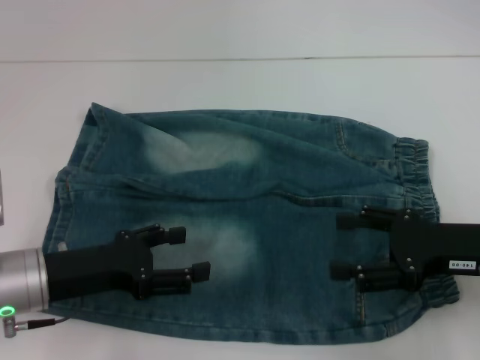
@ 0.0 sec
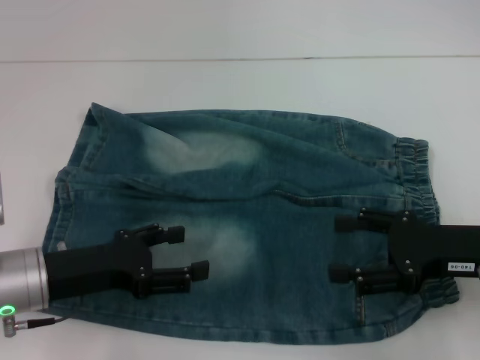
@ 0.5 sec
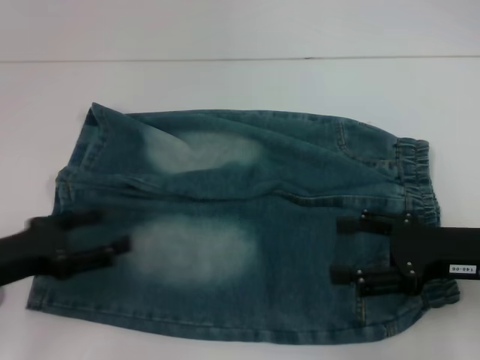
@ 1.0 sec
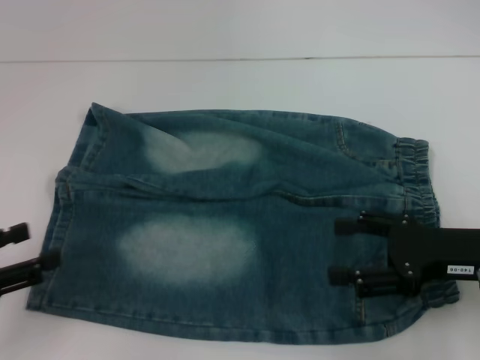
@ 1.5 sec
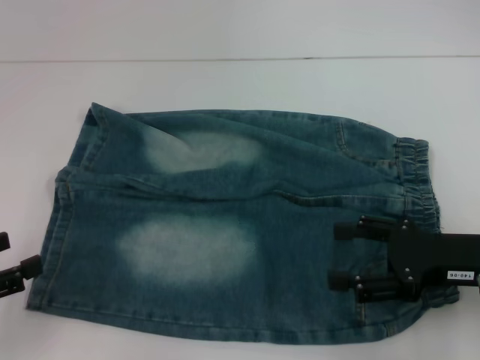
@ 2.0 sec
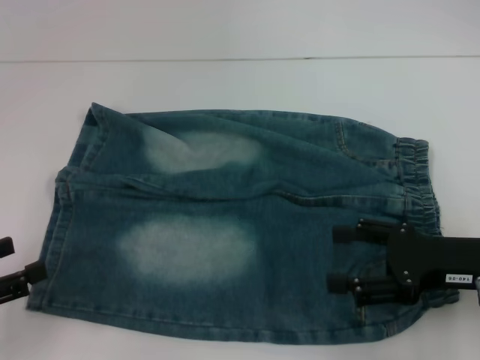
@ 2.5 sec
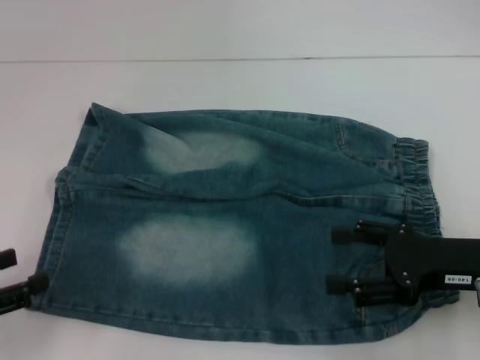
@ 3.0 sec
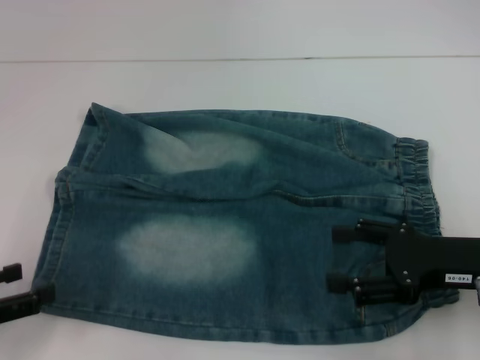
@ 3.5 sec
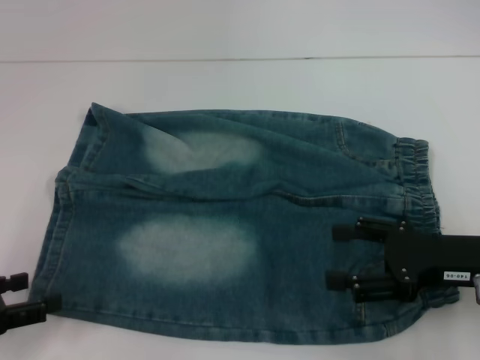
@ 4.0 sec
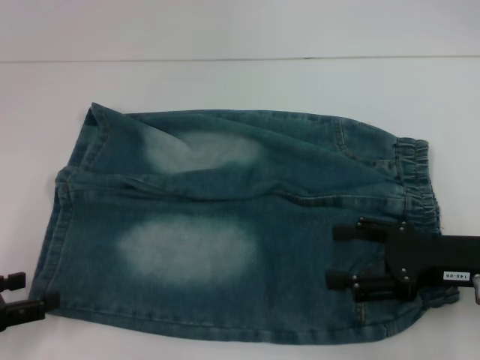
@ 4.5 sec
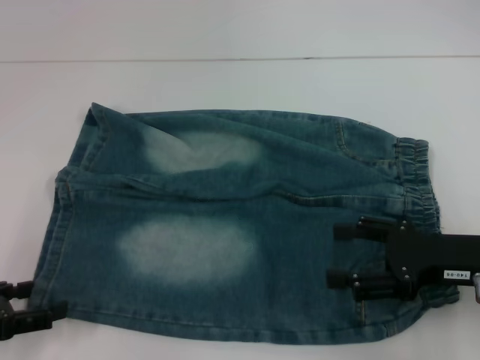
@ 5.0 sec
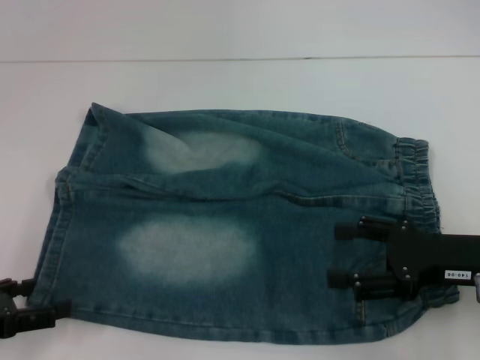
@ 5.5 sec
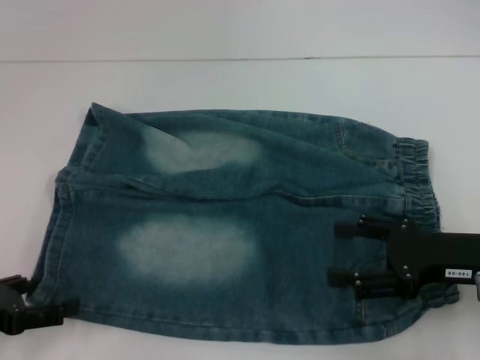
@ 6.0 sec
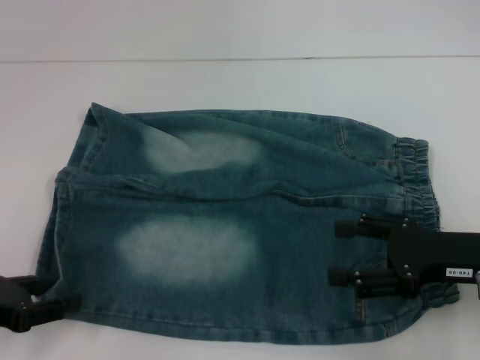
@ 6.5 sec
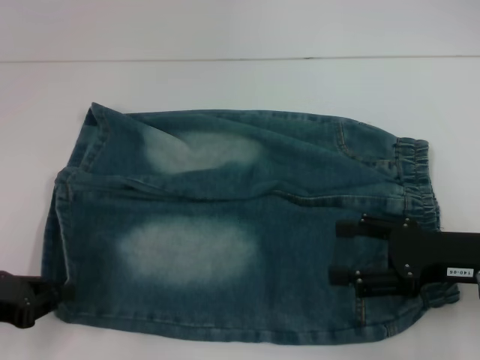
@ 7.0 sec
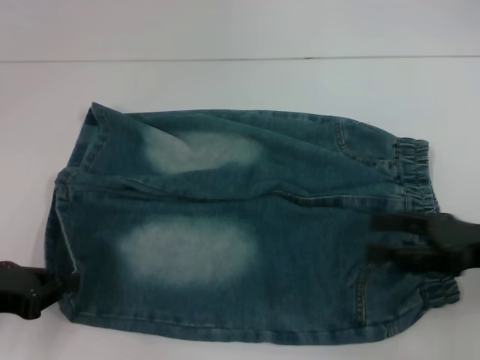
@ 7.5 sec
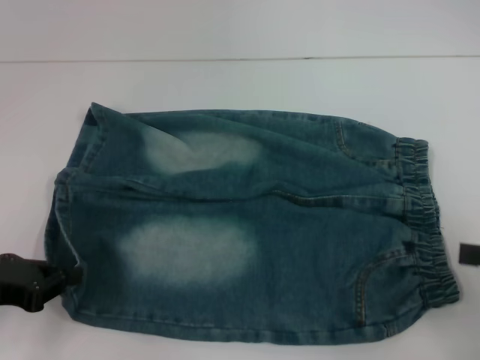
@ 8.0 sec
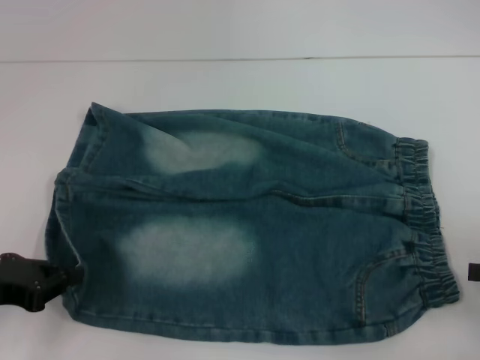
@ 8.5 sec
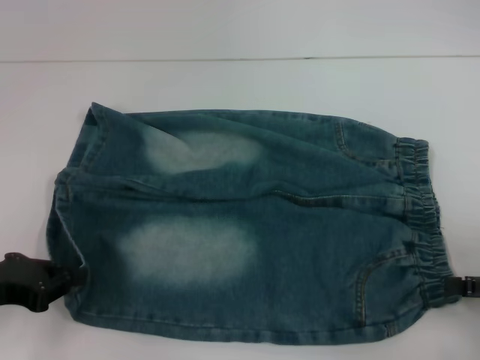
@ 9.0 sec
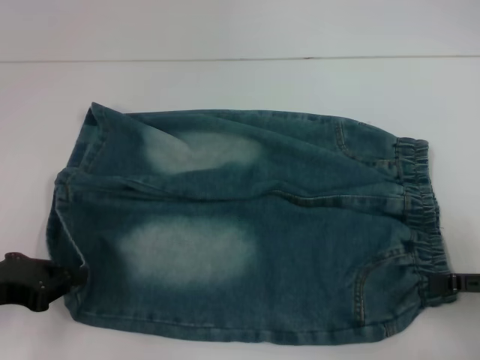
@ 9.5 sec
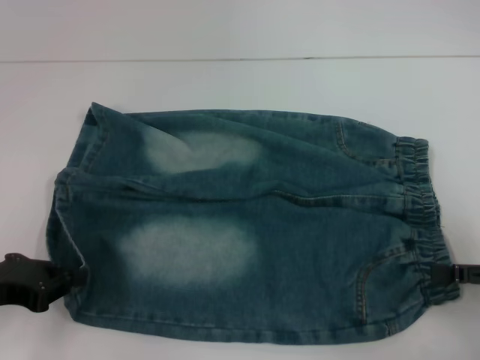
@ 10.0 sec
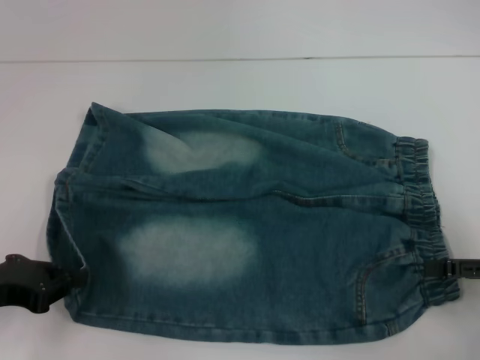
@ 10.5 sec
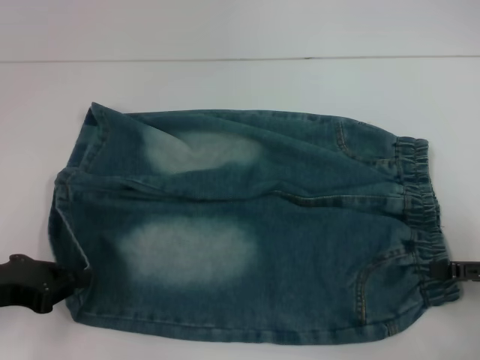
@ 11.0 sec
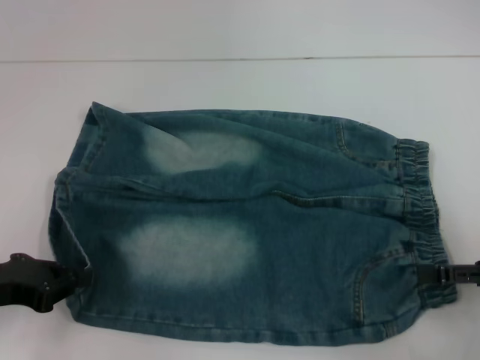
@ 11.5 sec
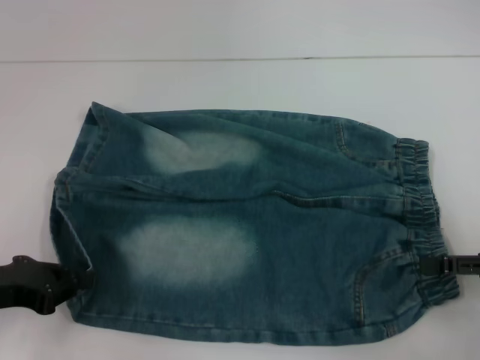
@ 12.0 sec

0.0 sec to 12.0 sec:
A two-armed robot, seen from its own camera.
Step, 0.0 sec to 7.0 sec: Grab the lower left pant leg with your left hand.
0.0 sec to 2.0 sec: The left gripper is displaced to the left and backward by some 15 cm.
2.0 sec to 6.0 sec: The grippers move only a little.
6.0 sec to 8.0 sec: The left gripper closes up, while the right gripper shifts some 10 cm to the right.
8.0 sec to 12.0 sec: There are only small adjustments of the grippers.

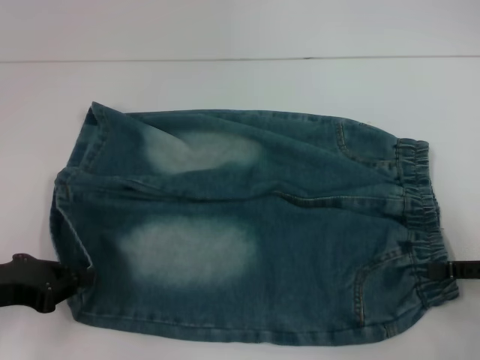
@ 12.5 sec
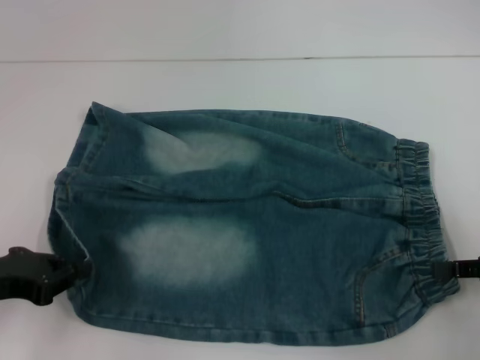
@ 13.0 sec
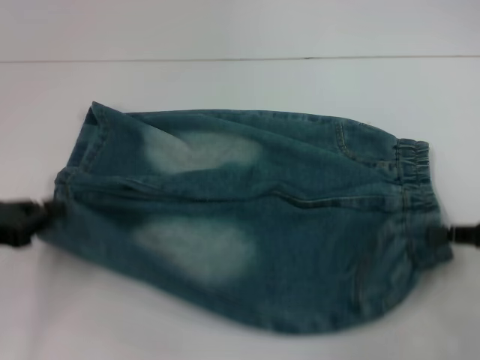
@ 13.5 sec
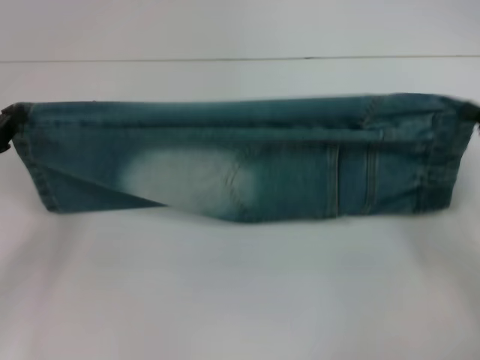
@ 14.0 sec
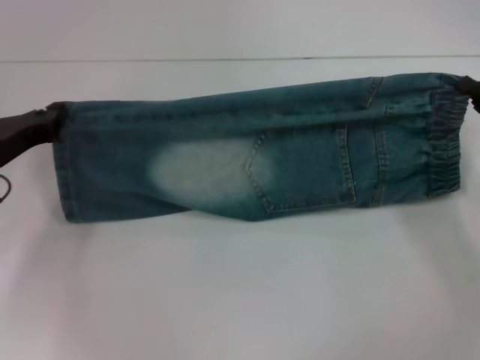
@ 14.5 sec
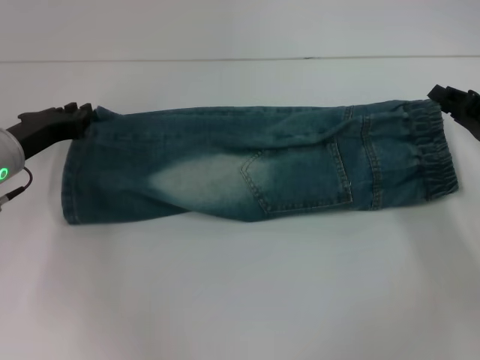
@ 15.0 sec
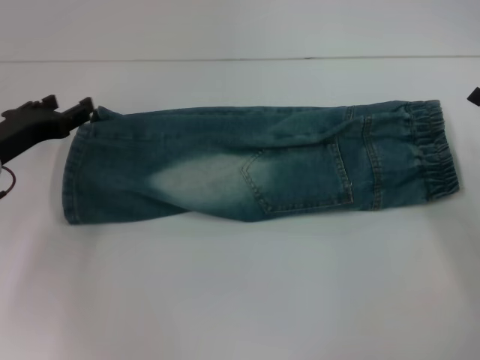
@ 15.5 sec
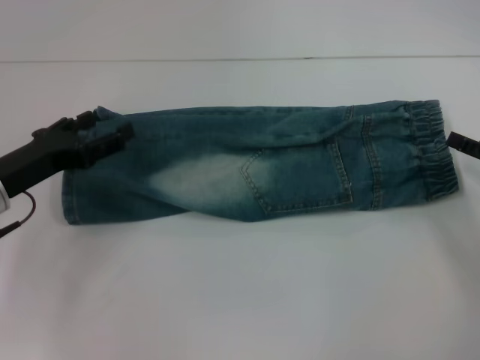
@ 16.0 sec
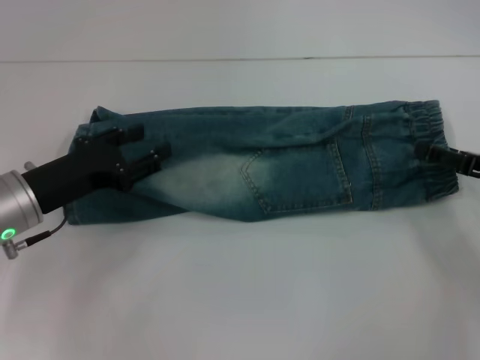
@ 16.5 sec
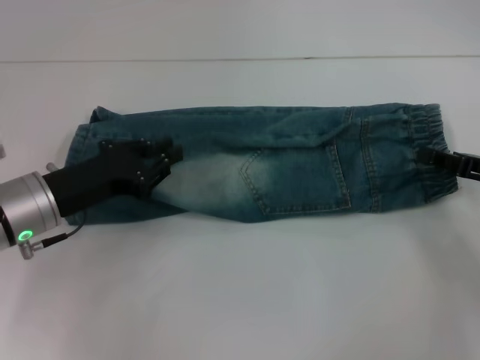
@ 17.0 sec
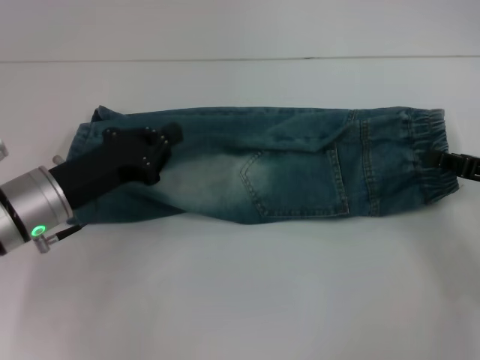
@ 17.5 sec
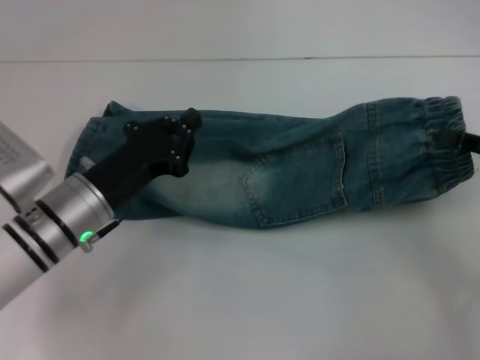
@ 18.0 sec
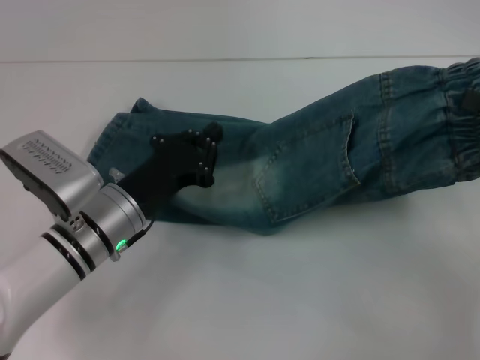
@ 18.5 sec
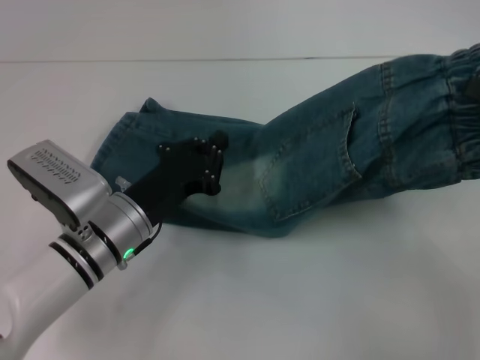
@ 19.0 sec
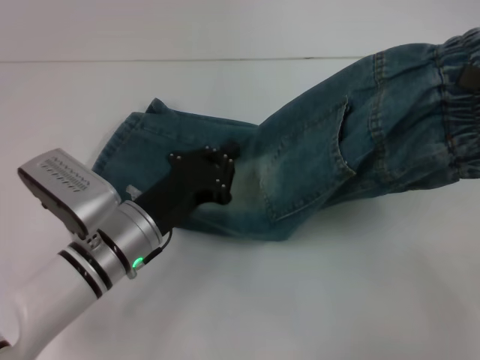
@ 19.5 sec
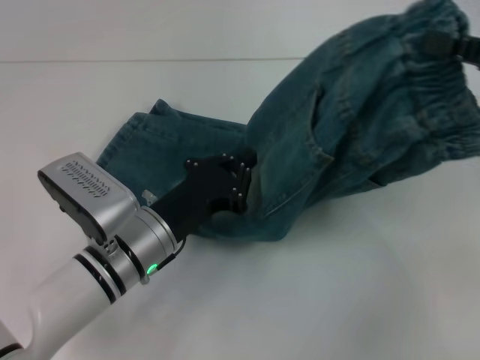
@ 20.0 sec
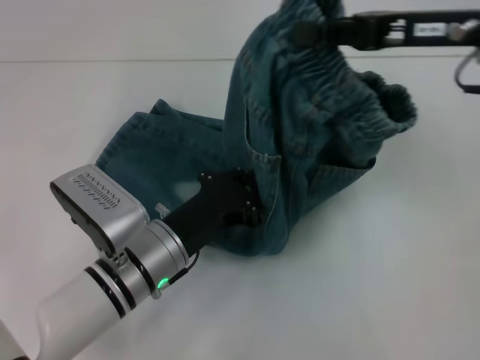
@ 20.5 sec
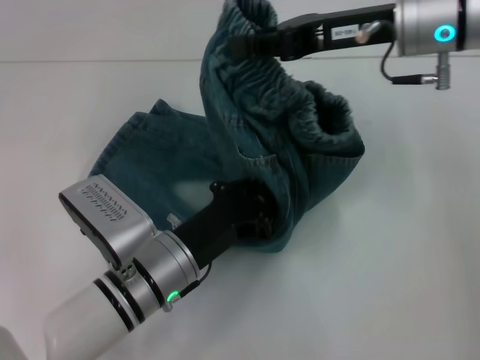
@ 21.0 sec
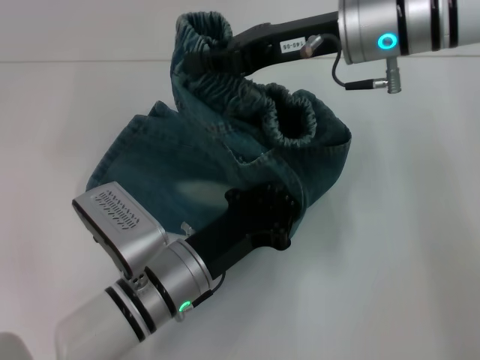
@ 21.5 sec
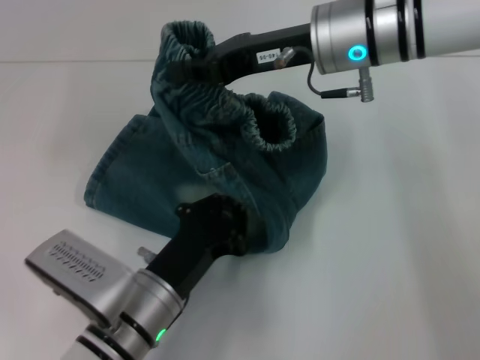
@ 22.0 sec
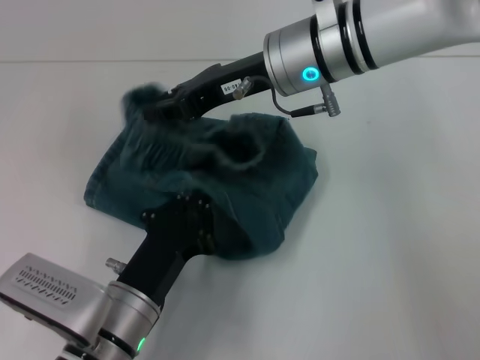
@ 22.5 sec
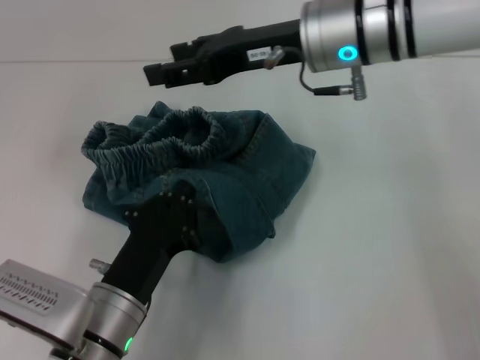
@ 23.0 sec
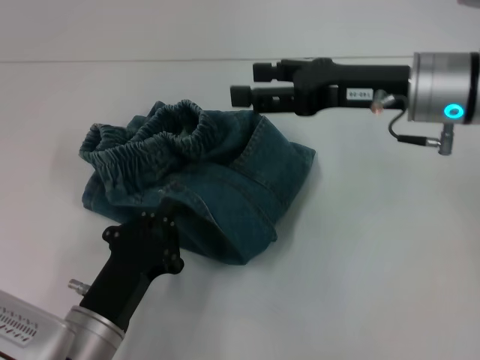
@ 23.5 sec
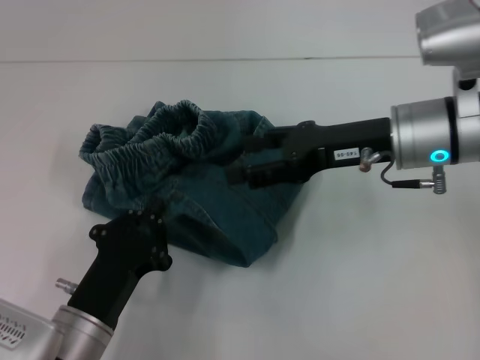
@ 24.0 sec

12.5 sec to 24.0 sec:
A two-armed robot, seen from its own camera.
Step, 13.5 sec to 15.0 sec: Fold upward with your right hand.
Step, 16.0 sec to 17.5 sec: Grab the waistband with your right hand.
Step, 18.0 sec to 22.0 sec: Press the middle of the pants with your left hand.
12.5 sec to 14.5 sec: The grippers both shift forward by some 10 cm. The right gripper closes.
14.5 sec to 16.5 sec: The left gripper goes roughly 5 cm to the right, and opens its fingers. Meanwhile the right gripper opens.
16.5 sec to 18.5 sec: The right gripper moves upward, some 10 cm, and closes up; the left gripper moves to the right, approximately 10 cm, and closes.
18.5 sec to 20.0 sec: The right gripper travels upward by some 5 cm.
20.0 sec to 22.0 sec: The right gripper heads to the left and forward, covering some 25 cm. Meanwhile the left gripper goes roughly 5 cm backward.
22.0 sec to 24.0 sec: The left gripper goes approximately 5 cm to the left. The right gripper heads to the right, downward and backward, covering roughly 10 cm, and opens its fingers.

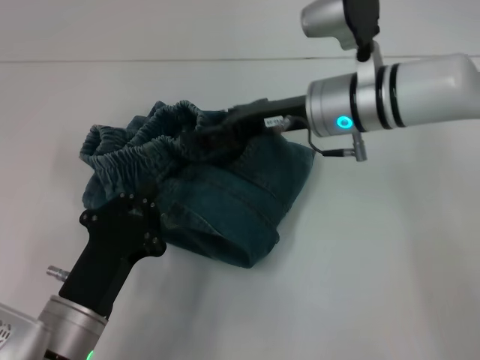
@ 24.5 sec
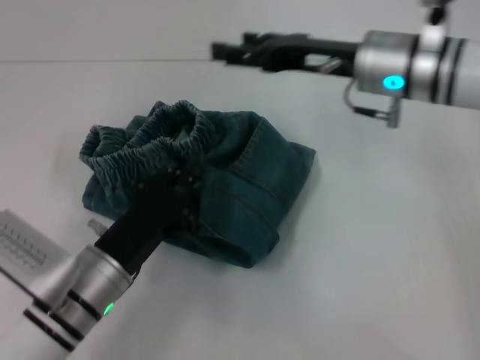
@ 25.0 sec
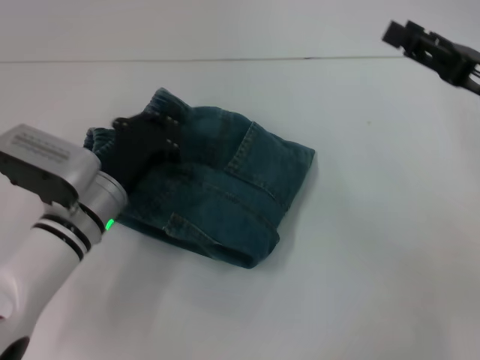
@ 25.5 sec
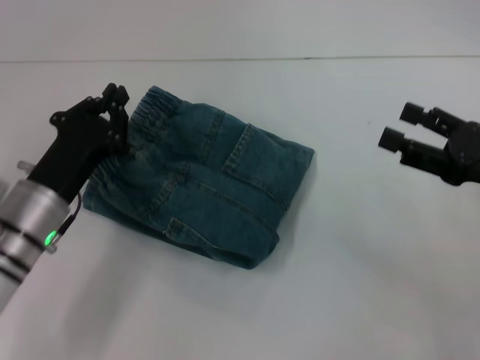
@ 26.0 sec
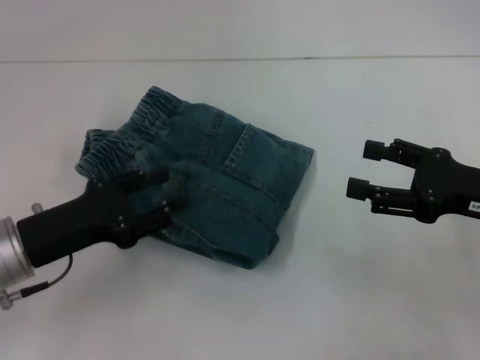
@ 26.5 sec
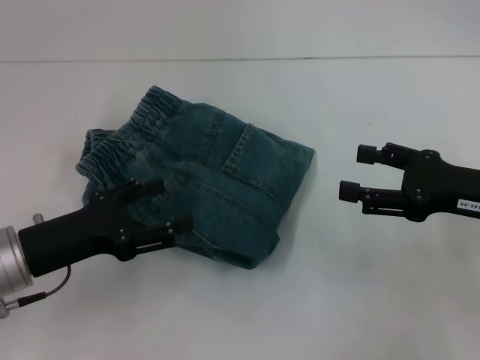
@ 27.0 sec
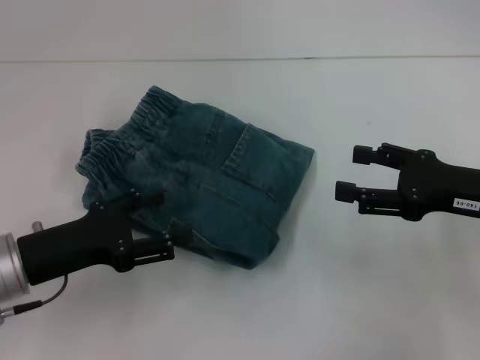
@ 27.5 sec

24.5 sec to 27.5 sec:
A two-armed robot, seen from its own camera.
Step, 24.5 sec to 26.5 sec: Adjust the pants with your left hand.
24.5 sec to 26.0 sec: The right gripper is displaced to the right and backward by some 25 cm, while the left gripper is displaced forward by approximately 10 cm.
26.0 sec to 27.5 sec: The left gripper shifts by roughly 5 cm, and opens its fingers.
